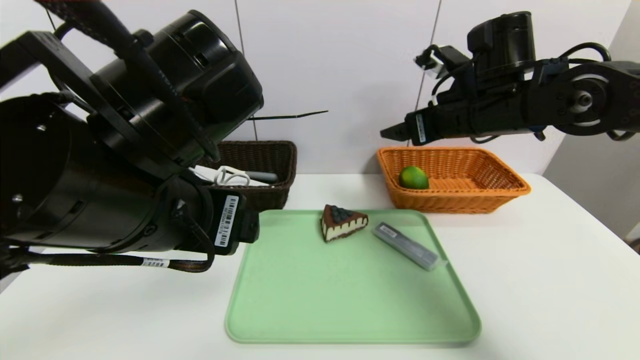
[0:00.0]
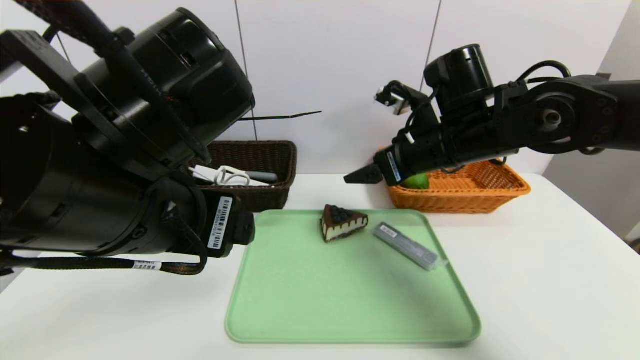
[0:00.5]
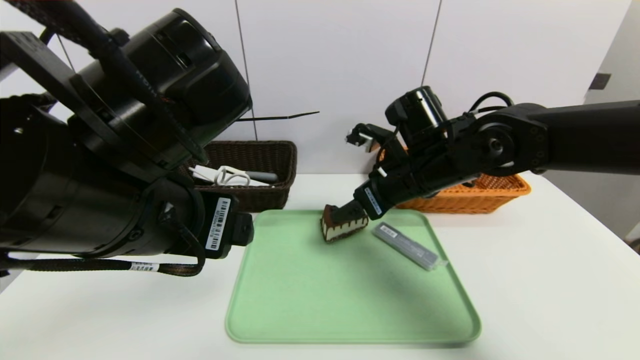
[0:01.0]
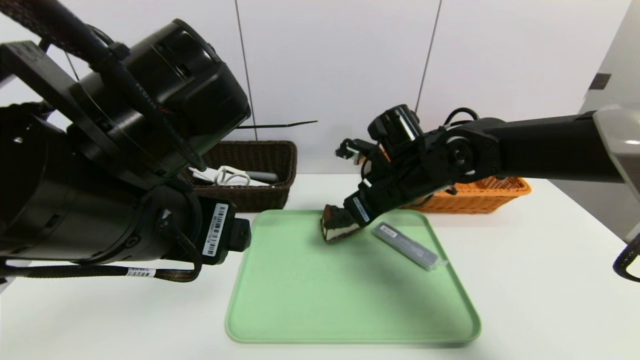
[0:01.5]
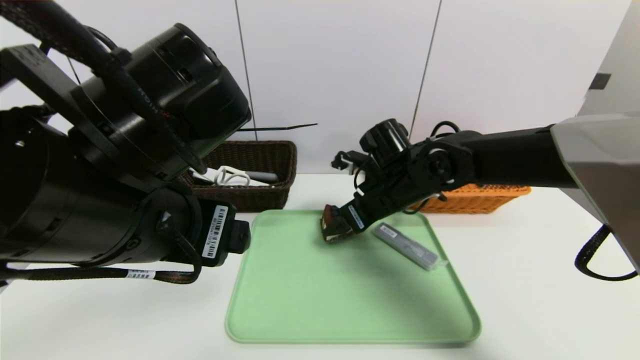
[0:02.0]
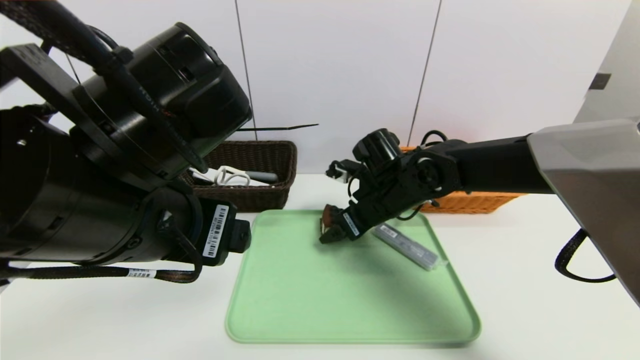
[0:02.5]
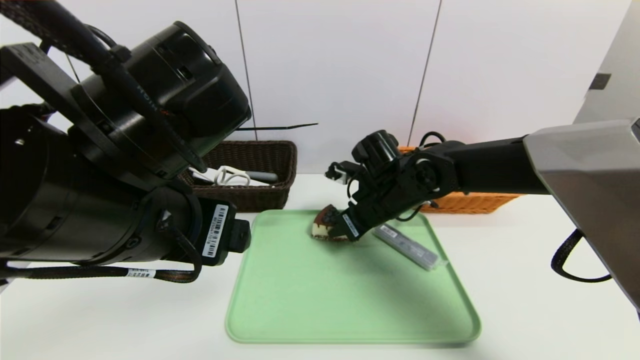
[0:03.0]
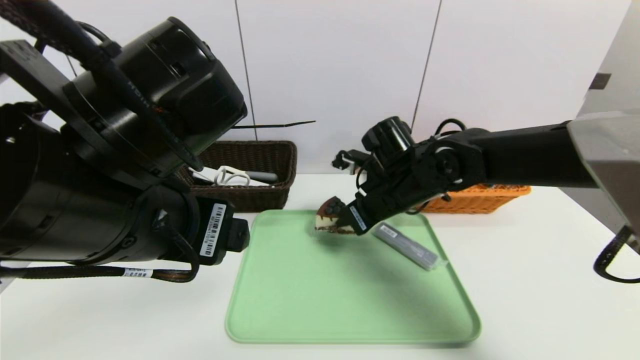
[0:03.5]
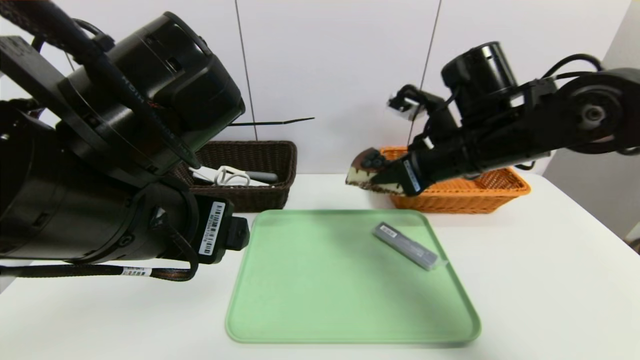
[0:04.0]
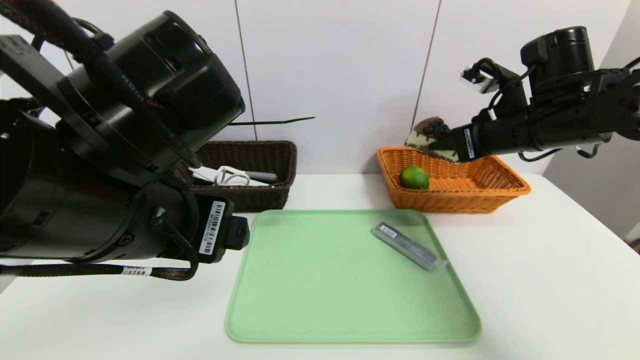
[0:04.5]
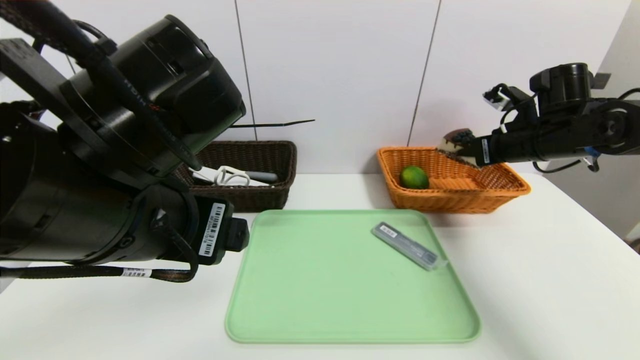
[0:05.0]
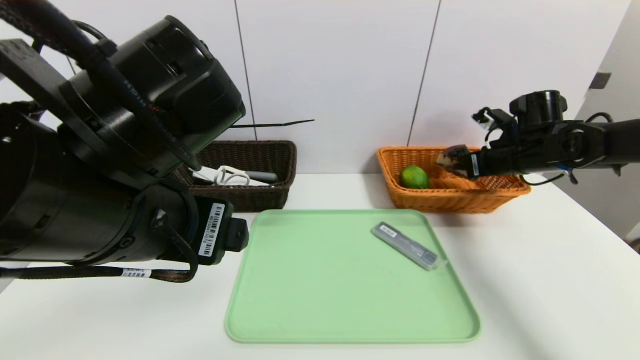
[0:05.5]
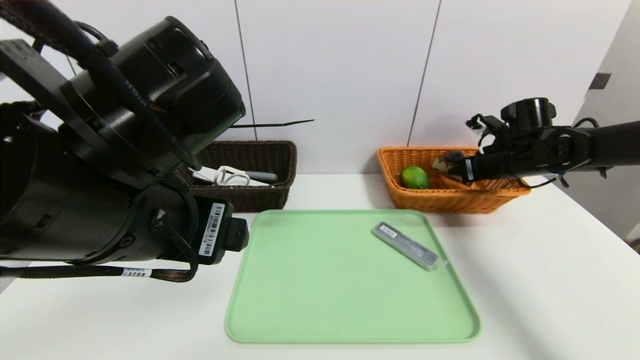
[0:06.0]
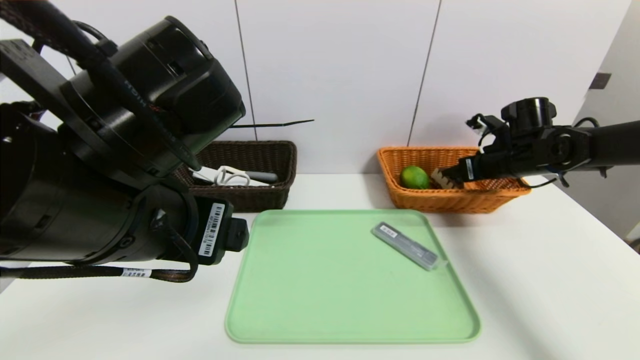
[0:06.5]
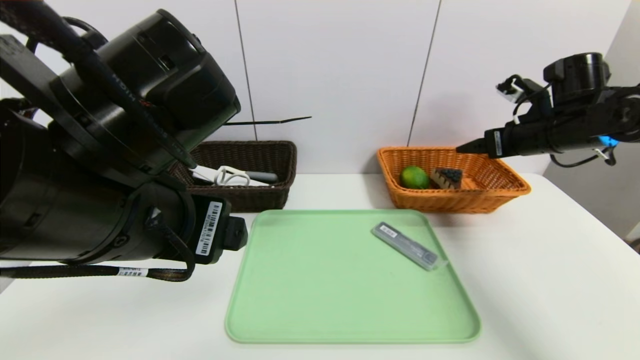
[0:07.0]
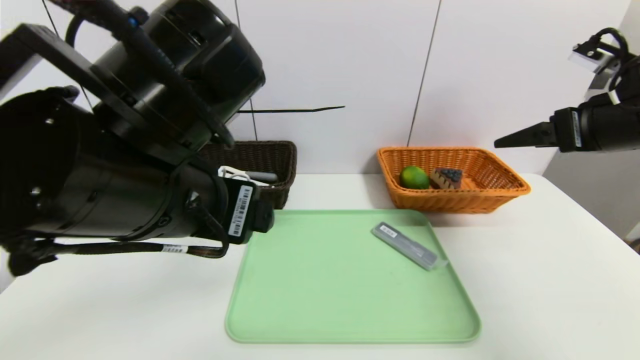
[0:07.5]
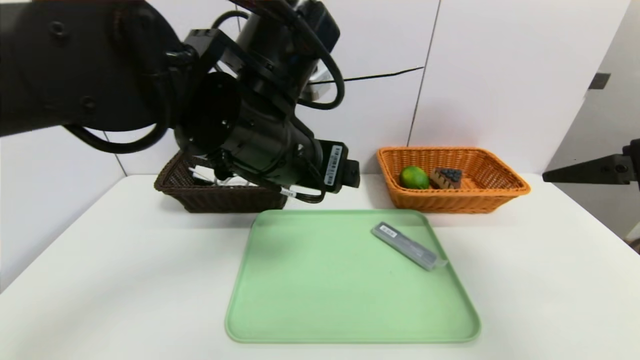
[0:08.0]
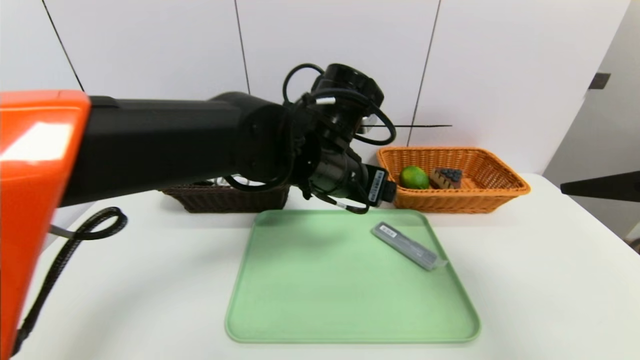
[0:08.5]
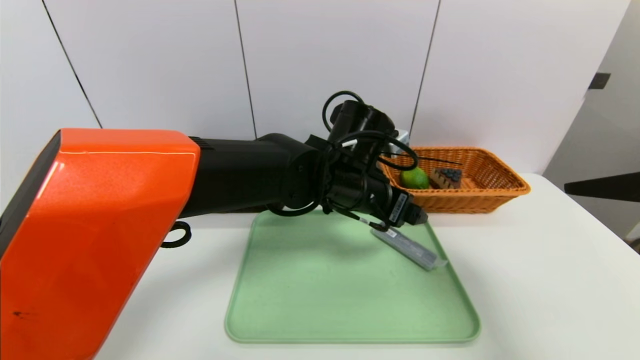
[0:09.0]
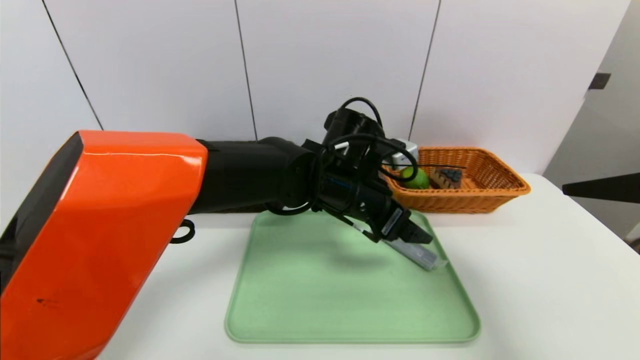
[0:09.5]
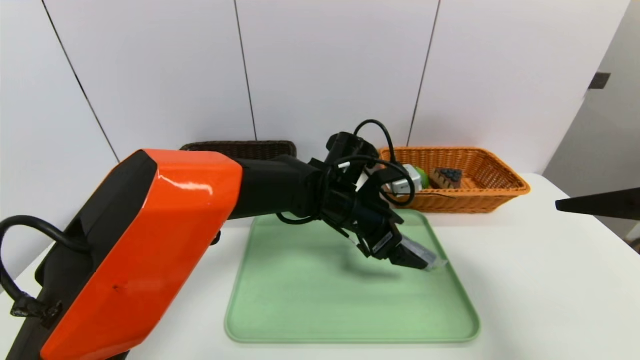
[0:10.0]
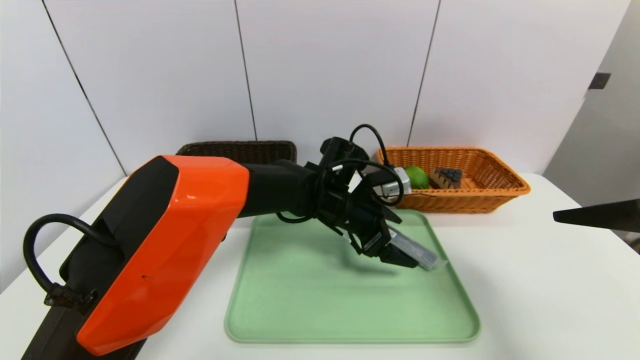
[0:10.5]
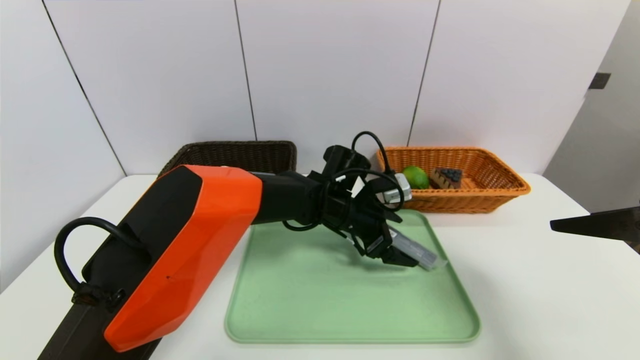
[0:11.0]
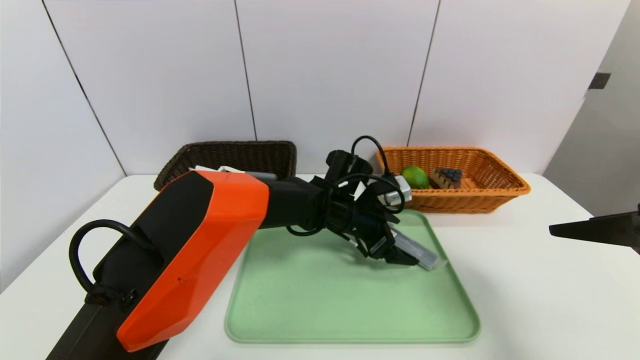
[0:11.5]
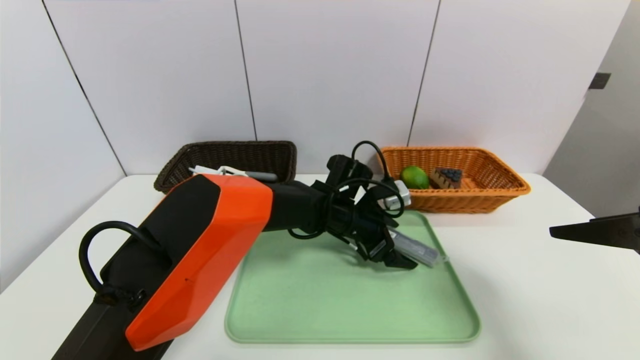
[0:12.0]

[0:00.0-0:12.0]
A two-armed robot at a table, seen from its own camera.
Task of the whole recording: place the food in the right basket with the right gripper, and place the non food items in the left basket with the left gripper.
Step, 0:00.0 to 0:06.5: Grasp the triangle cake and put it in the right basket.
0:00.0 to 0:02.0: The right gripper is displaced downward and to the left by some 15 cm.
0:02.0 to 0:04.0: The right gripper is displaced upward, to the right and backward by about 15 cm, and closes.
0:04.0 to 0:06.0: The right gripper moves to the right, forward and downward, approximately 25 cm.
0:06.0 to 0:08.0: The left gripper shifts some 10 cm forward and to the right; the right gripper shifts approximately 30 cm backward and upward, and opens.
0:08.0 to 0:10.0: The left gripper moves downward, forward and to the right, about 20 cm.
0:10.0 to 0:12.0: The left gripper is displaced downward by roughly 5 cm.

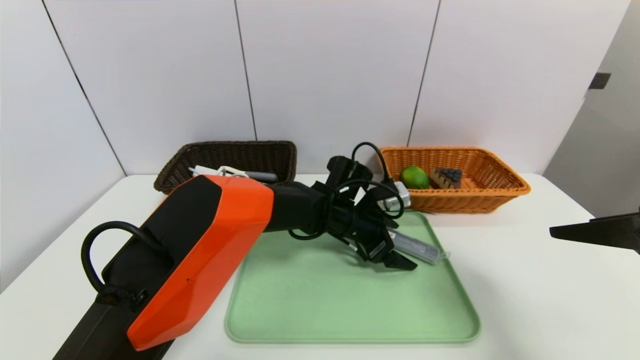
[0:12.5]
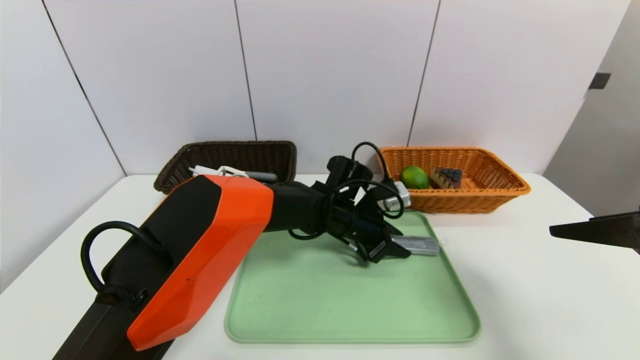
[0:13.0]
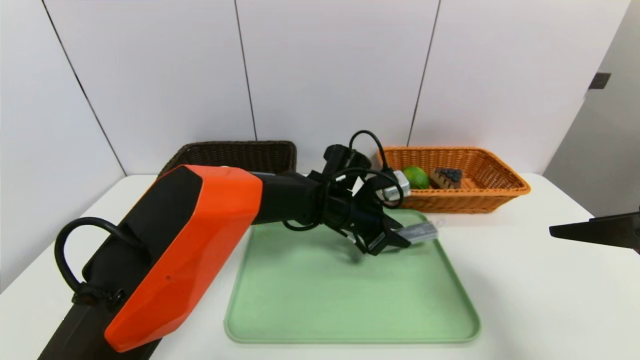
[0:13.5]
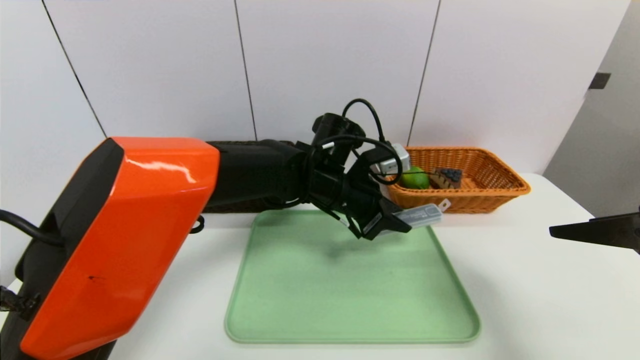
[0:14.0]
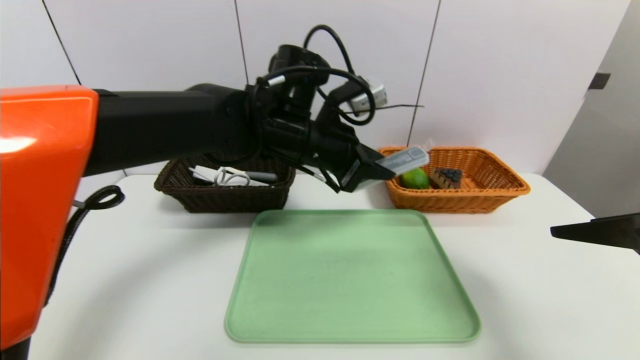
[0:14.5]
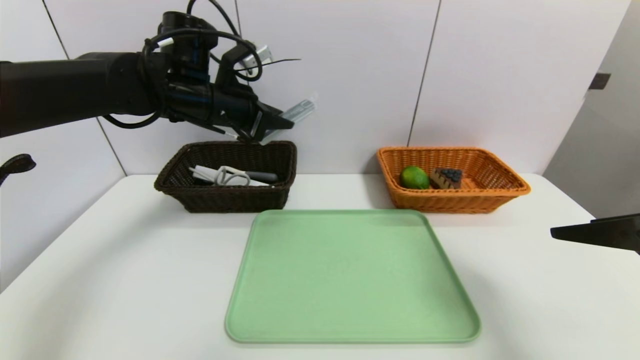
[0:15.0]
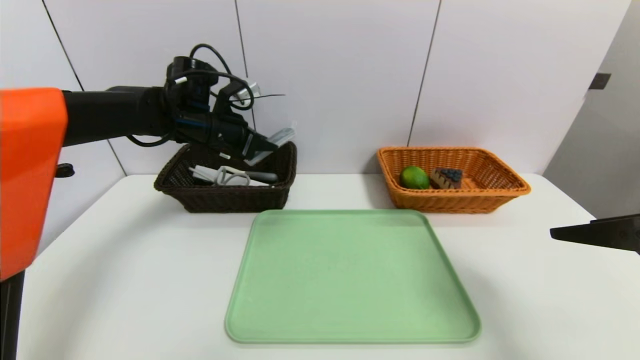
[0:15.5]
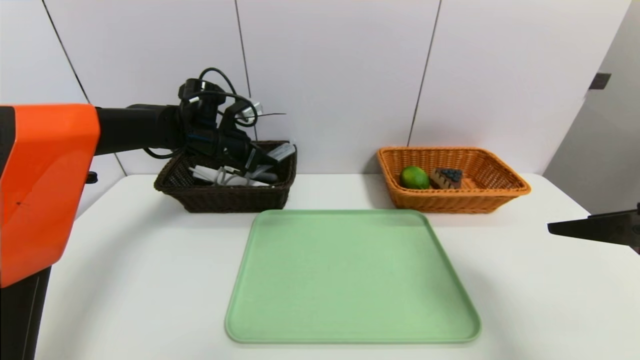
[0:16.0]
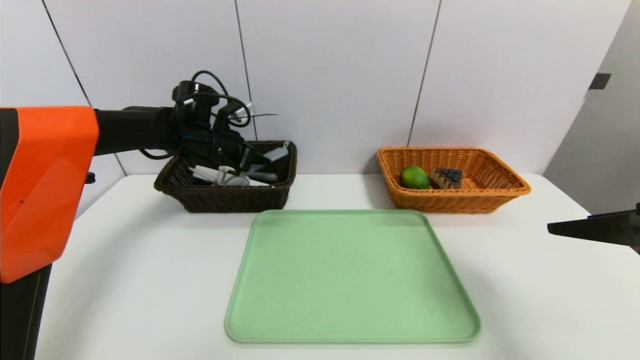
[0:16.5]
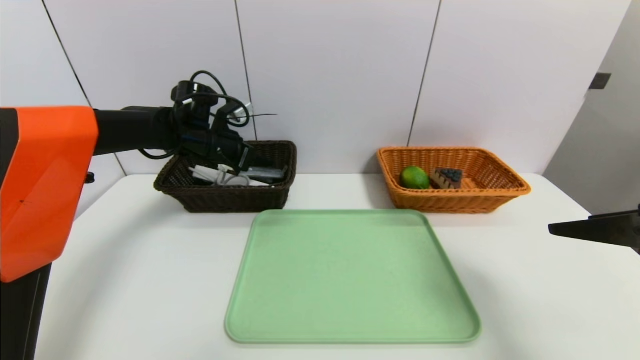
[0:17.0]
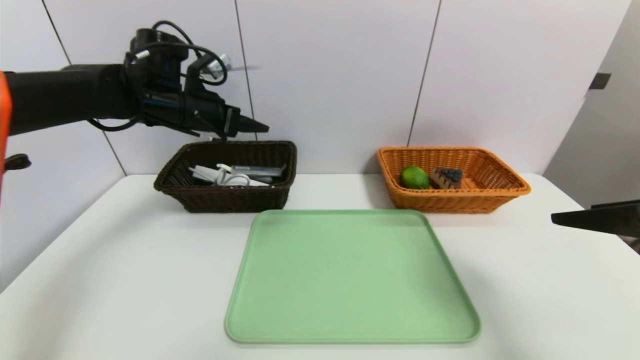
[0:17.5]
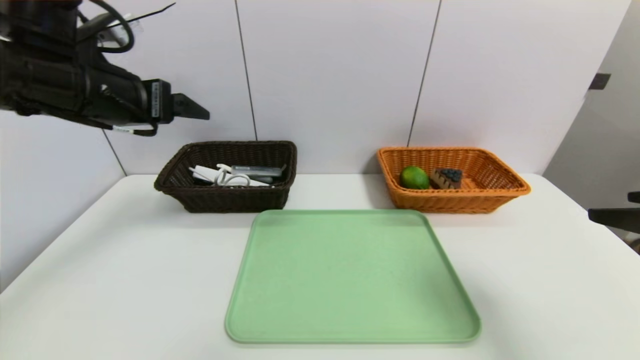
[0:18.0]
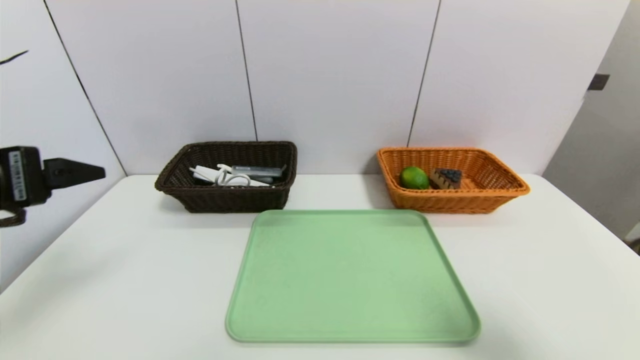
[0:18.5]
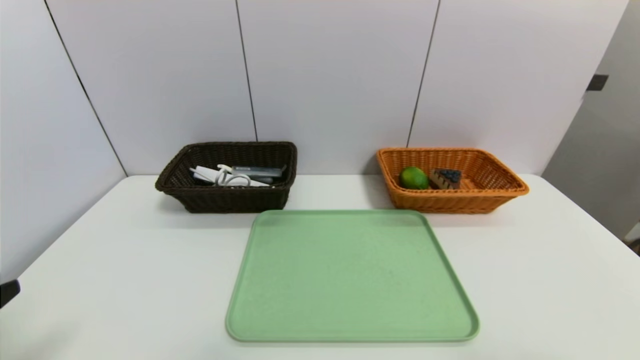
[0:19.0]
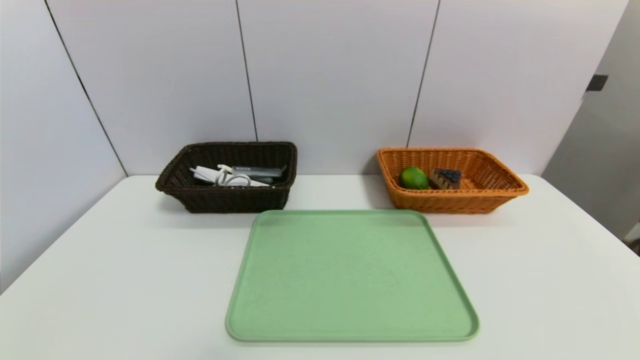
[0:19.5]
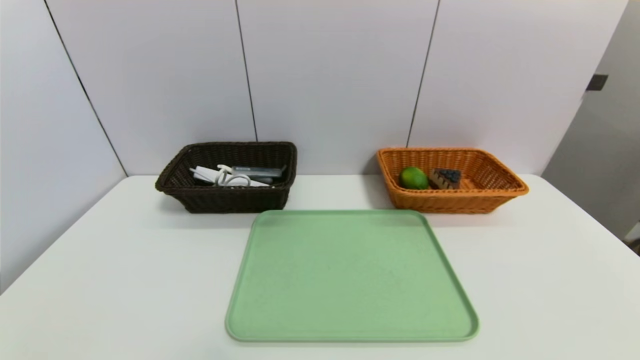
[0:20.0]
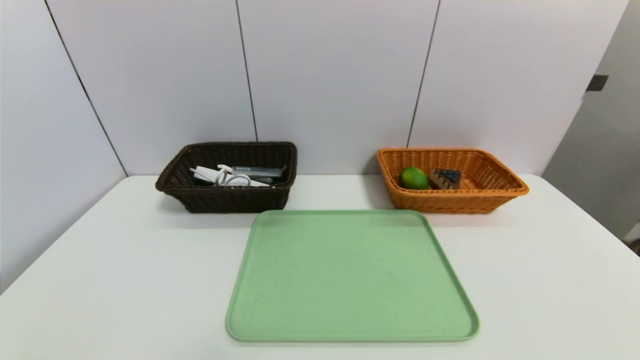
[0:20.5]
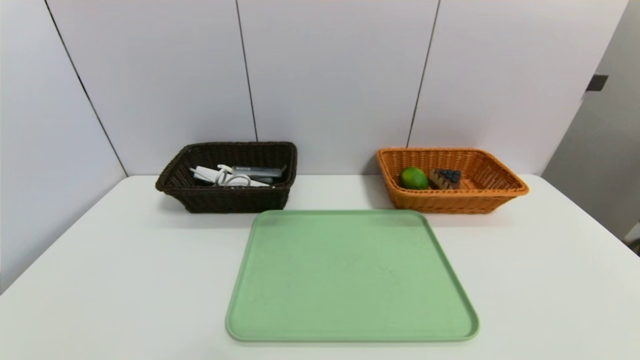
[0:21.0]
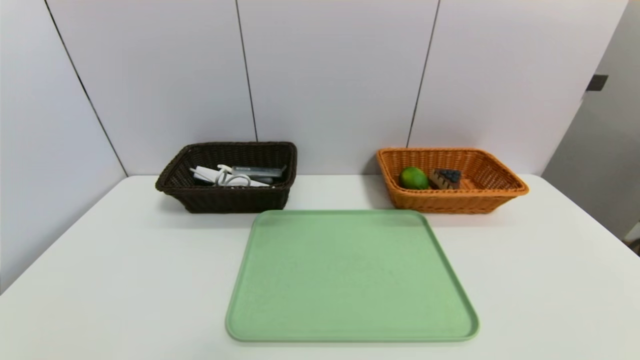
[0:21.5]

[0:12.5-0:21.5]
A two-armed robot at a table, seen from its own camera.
Task of the whole recording: place the food in the right basket with the right gripper, and place the non food items in the left basket with the left gripper.
Step, 0:12.5 to 0:17.0: Grasp the pen container and put it in the left basket.
0:12.5 to 0:14.5: The left gripper travels upward and to the left by about 20 cm, and closes its fingers.
0:14.5 to 0:17.0: The left gripper travels to the left and forward by about 20 cm, and opens its fingers.
0:17.0 to 0:19.5: The left gripper travels backward by roughly 50 cm, while the right gripper heads backward, covering approximately 20 cm.
